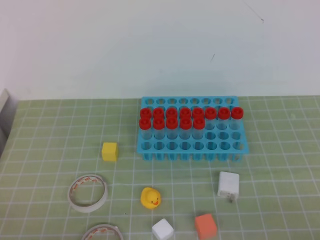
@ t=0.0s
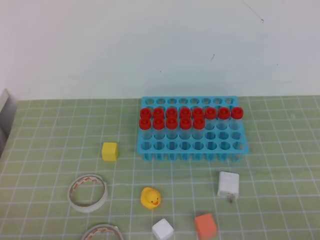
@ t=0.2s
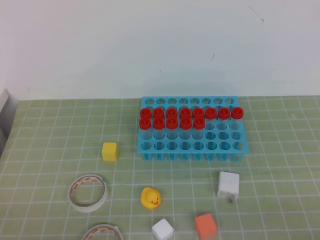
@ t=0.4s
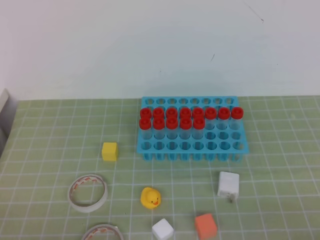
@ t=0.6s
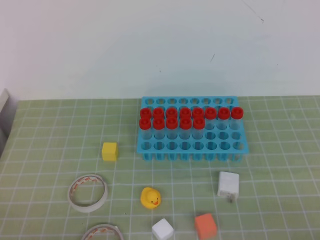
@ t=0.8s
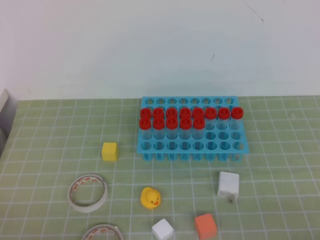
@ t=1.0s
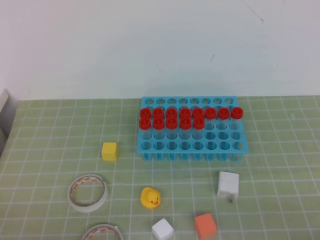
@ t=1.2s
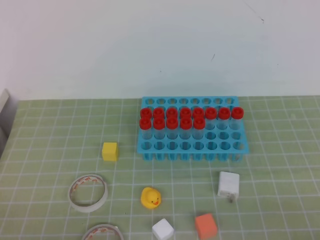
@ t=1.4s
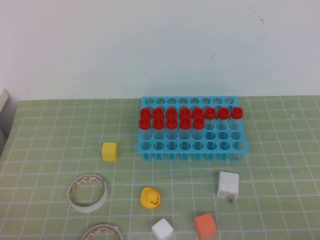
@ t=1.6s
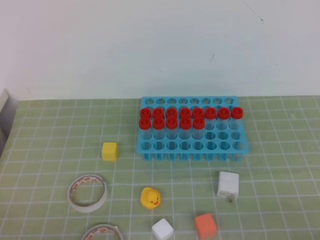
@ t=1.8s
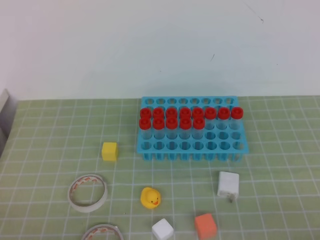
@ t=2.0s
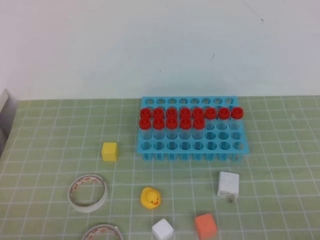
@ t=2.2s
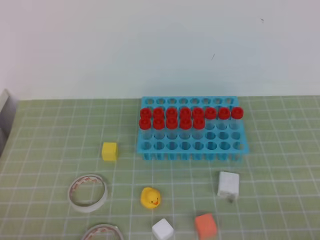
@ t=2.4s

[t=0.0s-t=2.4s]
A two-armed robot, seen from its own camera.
t=0.0s to t=1.2s: Both grippers stay put.
t=1.2s to t=2.4s: Neither gripper changes place.
